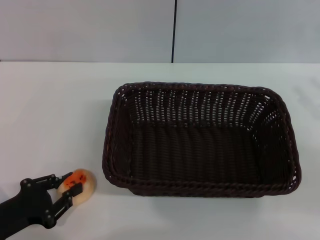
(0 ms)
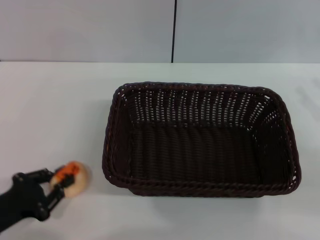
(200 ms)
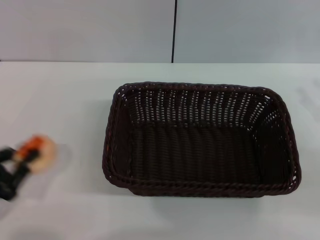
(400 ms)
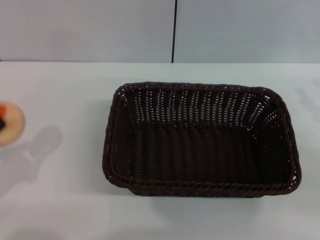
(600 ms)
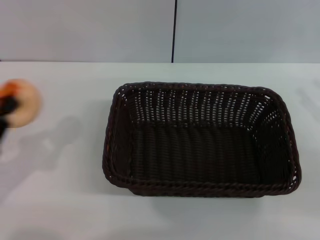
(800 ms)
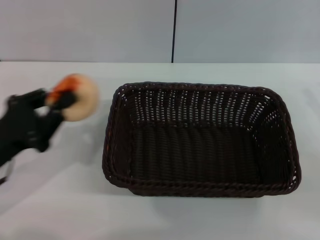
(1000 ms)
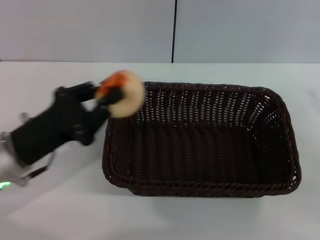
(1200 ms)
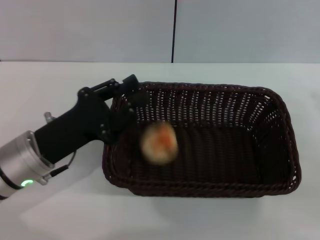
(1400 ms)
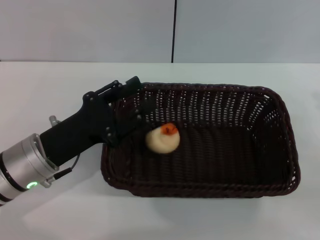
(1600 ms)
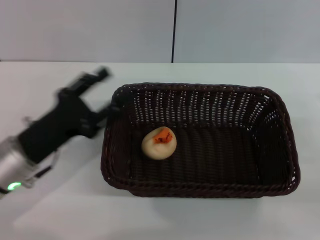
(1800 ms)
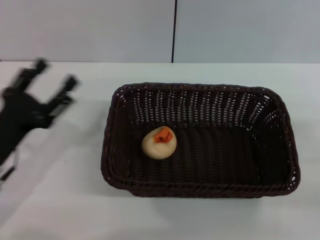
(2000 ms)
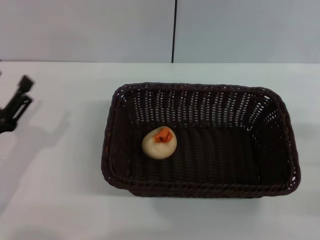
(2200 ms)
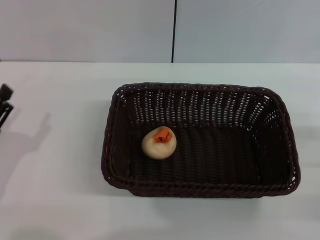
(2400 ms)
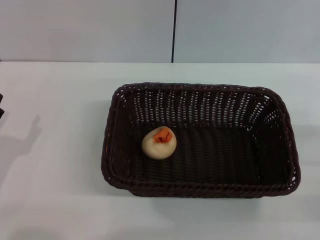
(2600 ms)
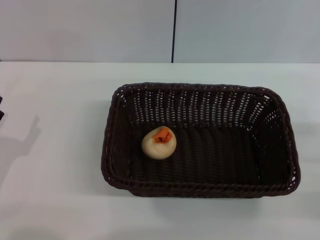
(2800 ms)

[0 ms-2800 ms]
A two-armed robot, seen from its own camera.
Step, 1000 ms to 1800 ms: Place the egg yolk pastry into the basket with the left gripper.
0 ms to 1400 ms: The left gripper moves to the right, forward and upward, about 15 cm.
1400 ms to 2800 ms: The left gripper moves to the left and backward, approximately 10 cm, and opens.
